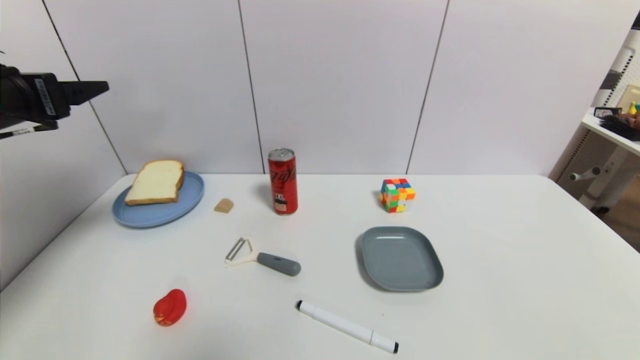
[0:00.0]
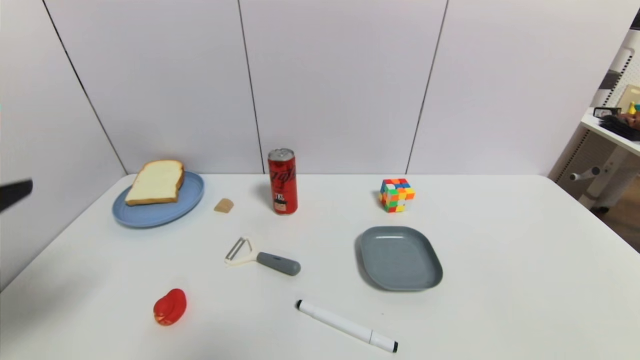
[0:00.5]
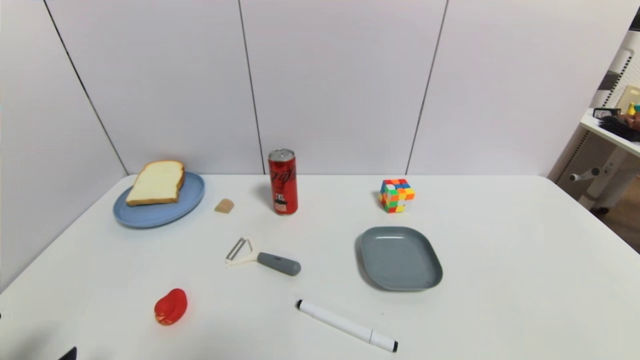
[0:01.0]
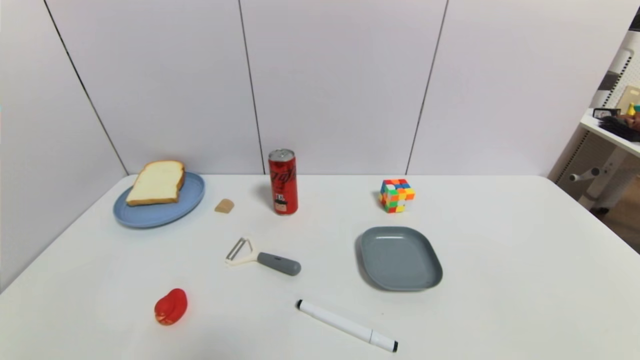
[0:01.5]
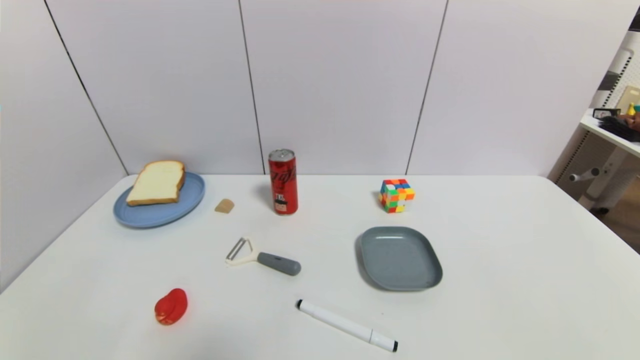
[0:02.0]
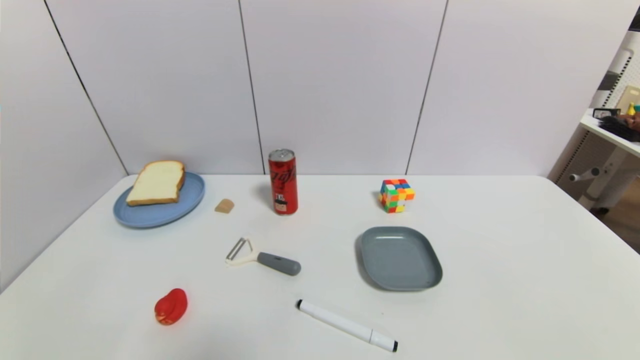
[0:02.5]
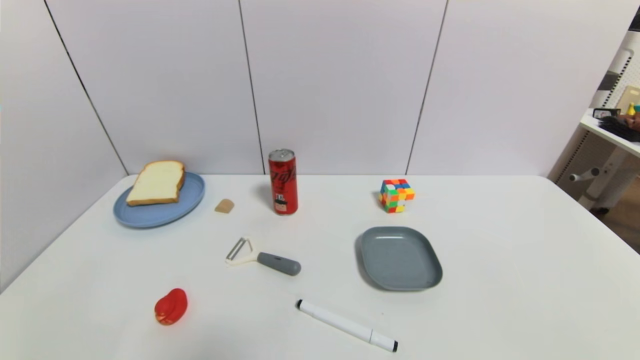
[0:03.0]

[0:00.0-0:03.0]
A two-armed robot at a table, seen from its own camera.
Task of the whole recording: use a gripper to pick the target object and place on the blue plate.
0:00.0 to 0:01.5: The left gripper goes some 35 cm backward and downward.
